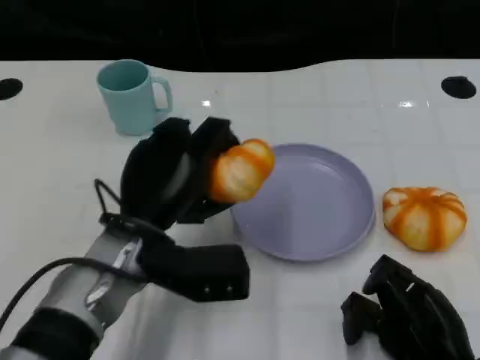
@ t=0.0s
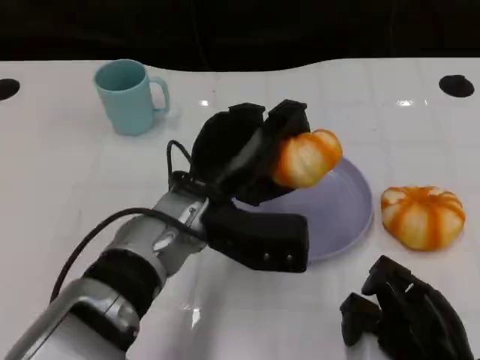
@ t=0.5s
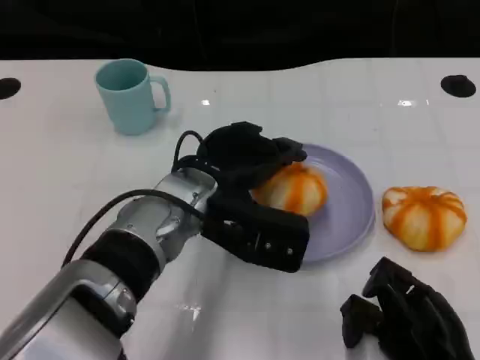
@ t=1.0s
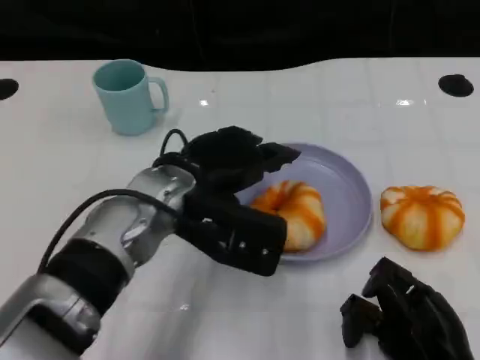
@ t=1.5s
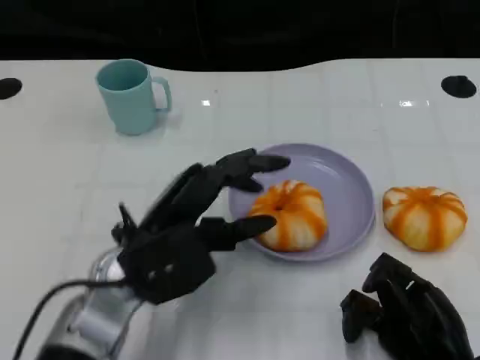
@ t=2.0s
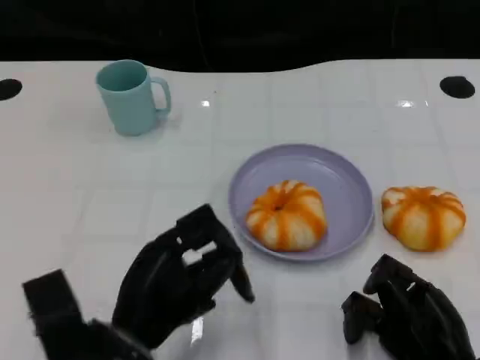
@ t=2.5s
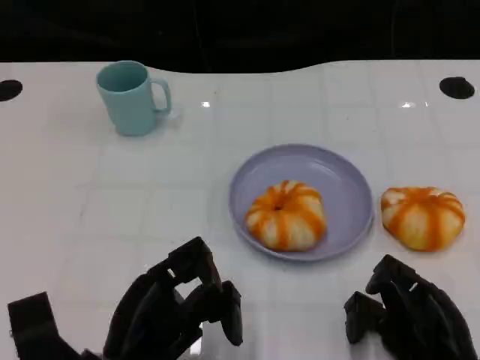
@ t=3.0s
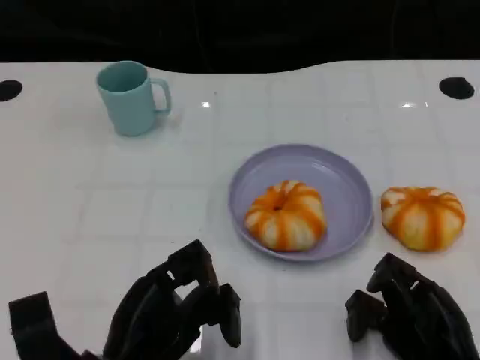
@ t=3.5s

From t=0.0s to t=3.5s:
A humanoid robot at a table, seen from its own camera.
Task of the whole recording: Grasp the bread from the table and place it into the plate.
From t=2.0s to t=3.5s: The left hand shifts about 10 cm backward.

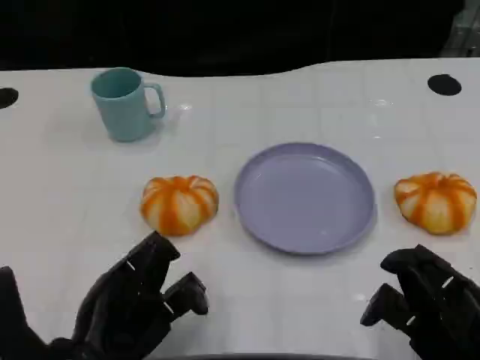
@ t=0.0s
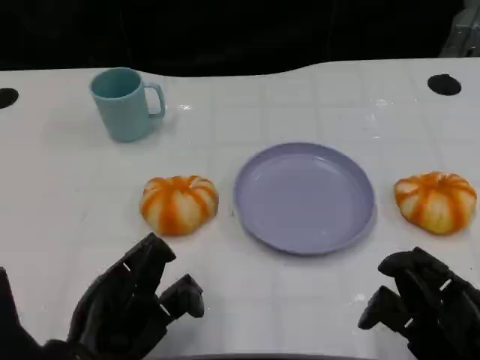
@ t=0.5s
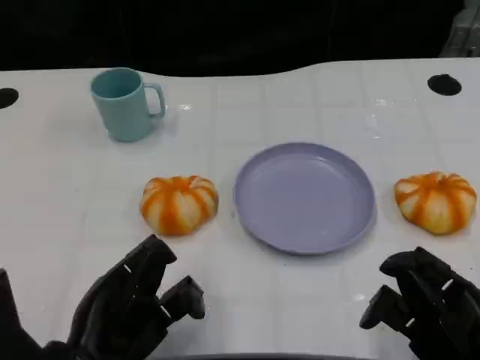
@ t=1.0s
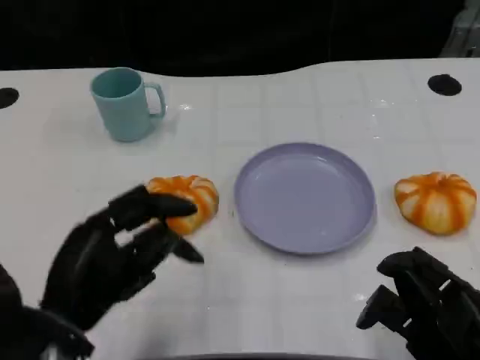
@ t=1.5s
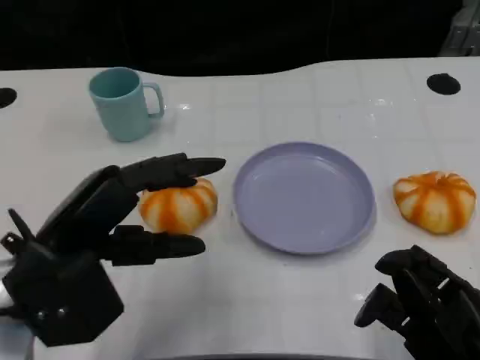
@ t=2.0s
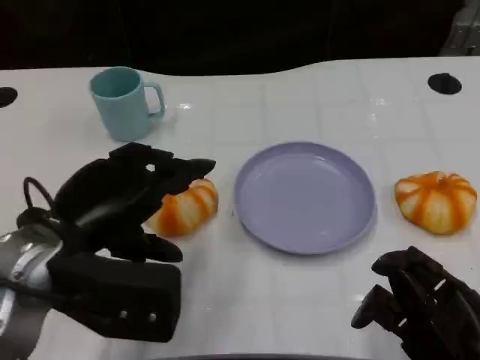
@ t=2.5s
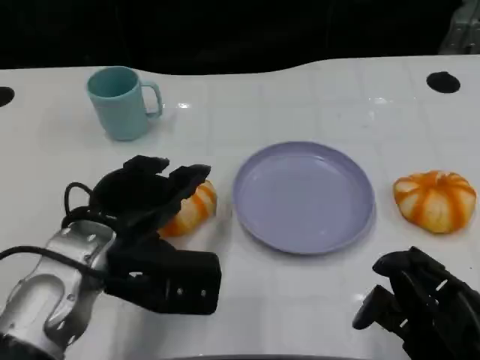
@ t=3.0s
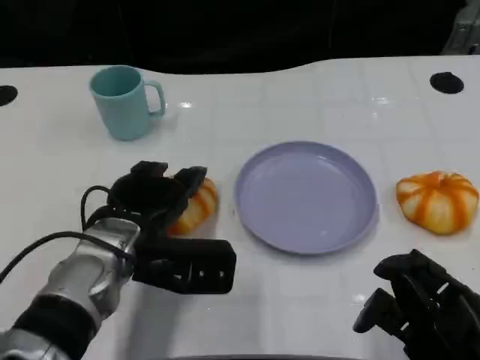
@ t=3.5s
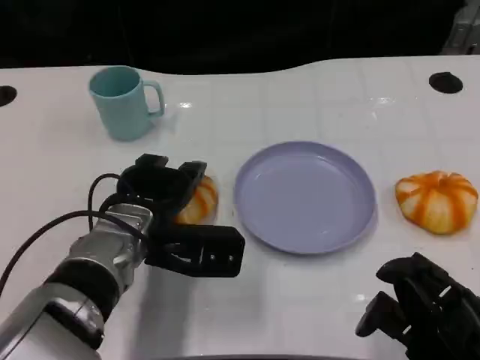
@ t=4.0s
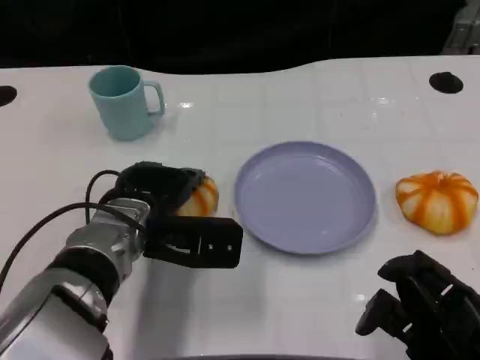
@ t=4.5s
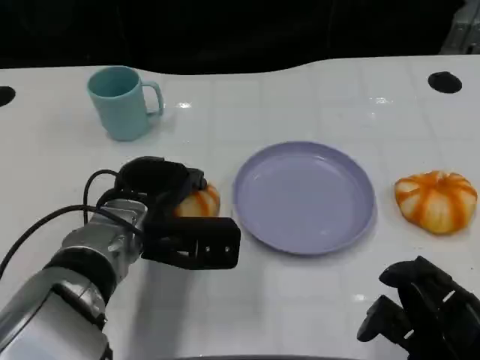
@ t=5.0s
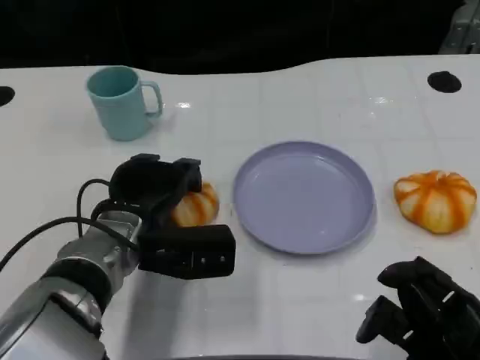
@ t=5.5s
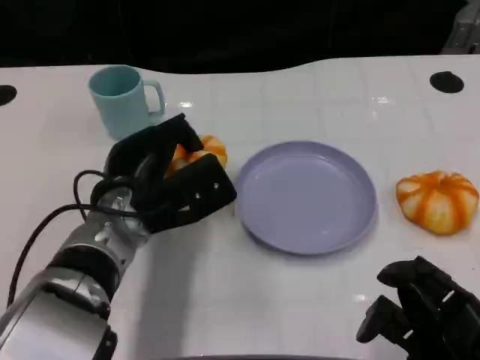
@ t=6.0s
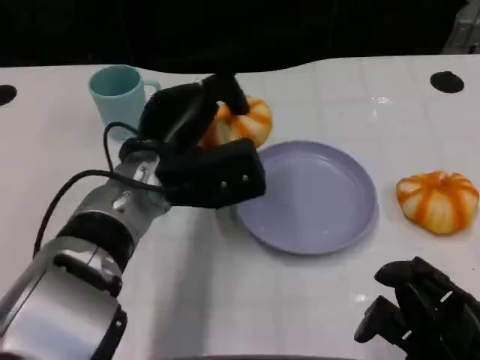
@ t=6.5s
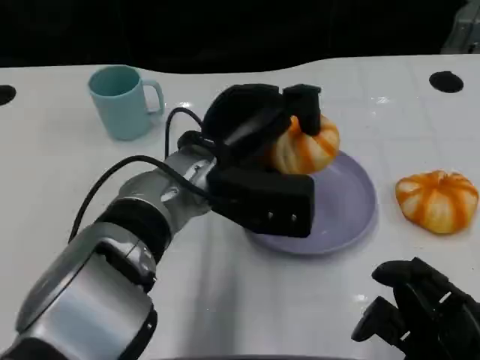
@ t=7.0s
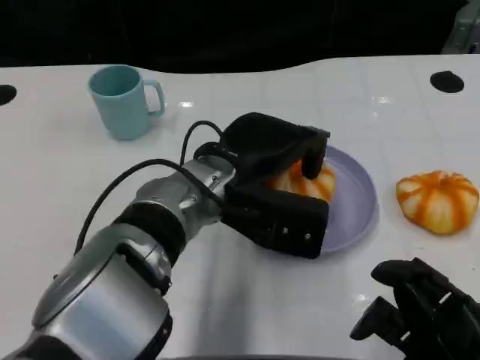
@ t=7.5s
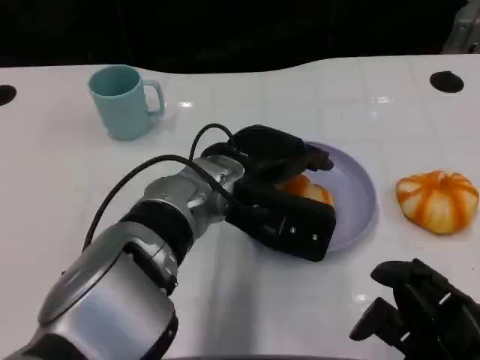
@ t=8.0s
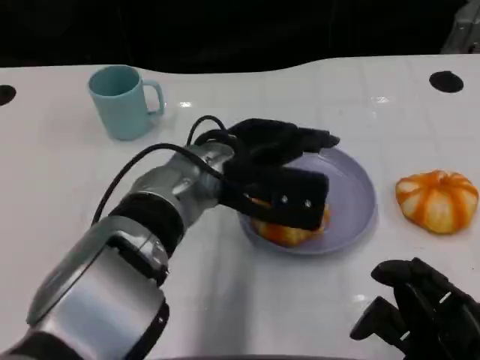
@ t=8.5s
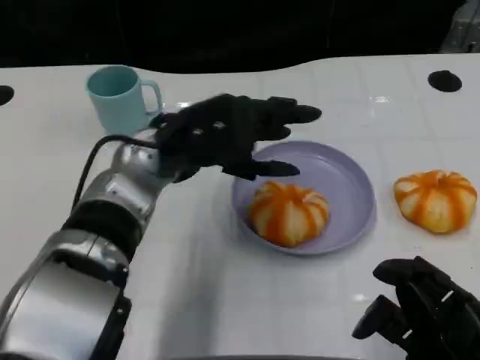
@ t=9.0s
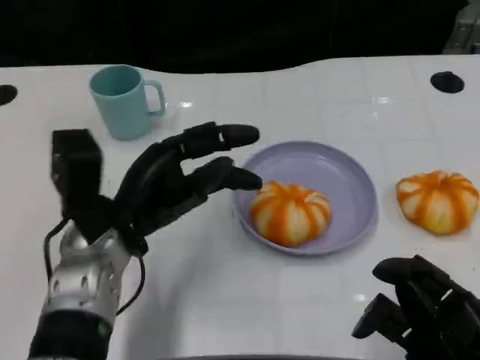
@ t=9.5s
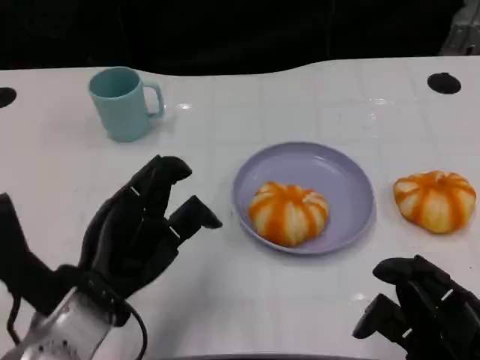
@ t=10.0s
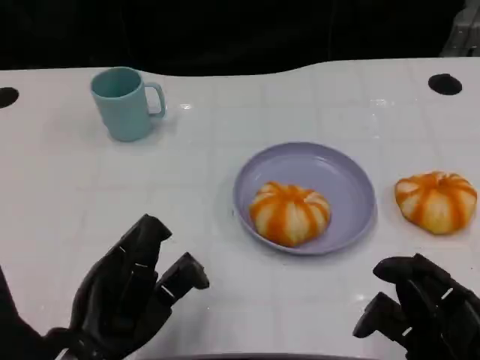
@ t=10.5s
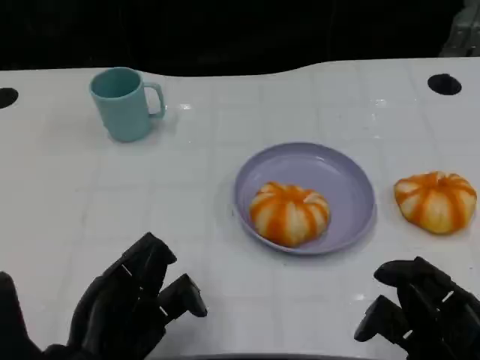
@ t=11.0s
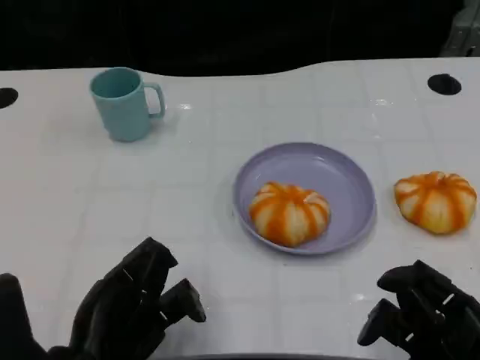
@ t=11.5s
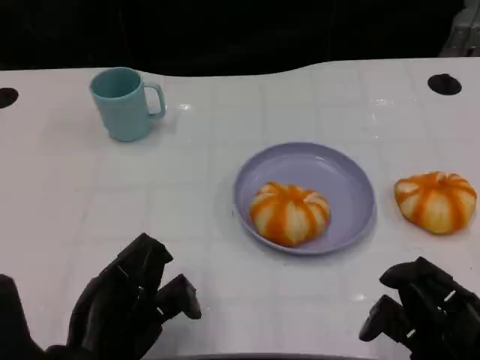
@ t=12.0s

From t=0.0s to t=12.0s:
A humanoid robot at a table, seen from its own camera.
Task of the whole recording: Grasp the bread from the table and place it into the plate.
From t=0.0s to t=2.0s: The left hand moves upward and forward, approximately 10 cm.
From t=2.0s to t=4.0s: The left hand goes approximately 15 cm forward, to the right and downward.
From t=6.0s to t=8.0s: The left hand moves to the right, roughly 10 cm.
From t=8.0s to t=10.0s: The left hand goes about 15 cm to the left and backward.
From t=10.0s to t=12.0s: The left hand moves roughly 5 cm.

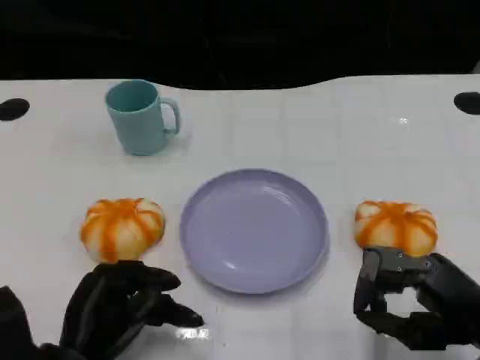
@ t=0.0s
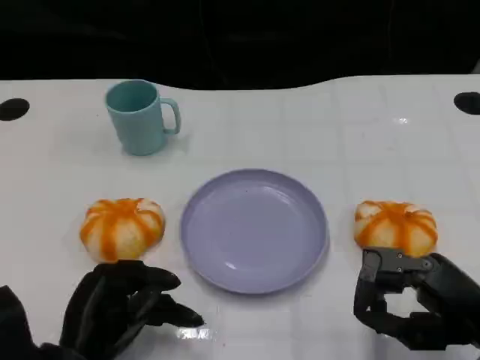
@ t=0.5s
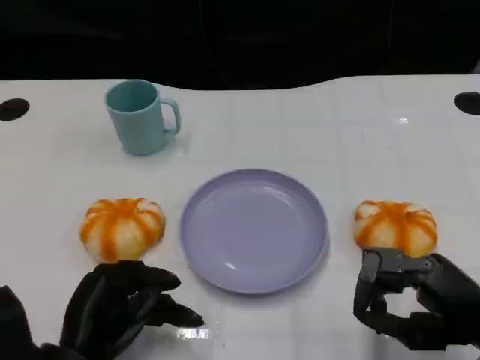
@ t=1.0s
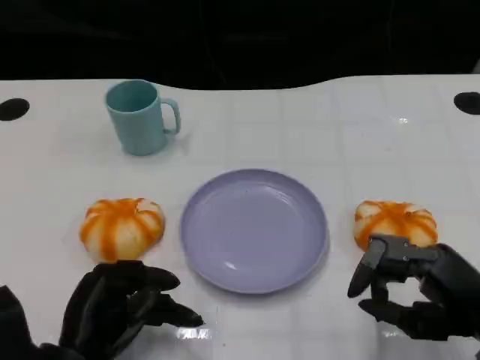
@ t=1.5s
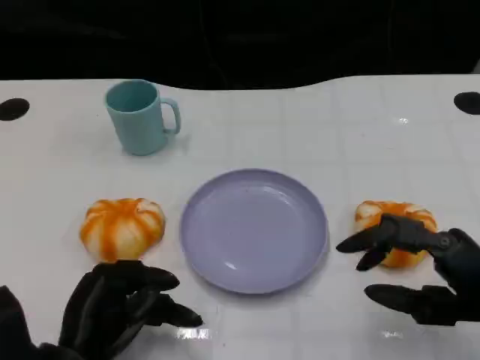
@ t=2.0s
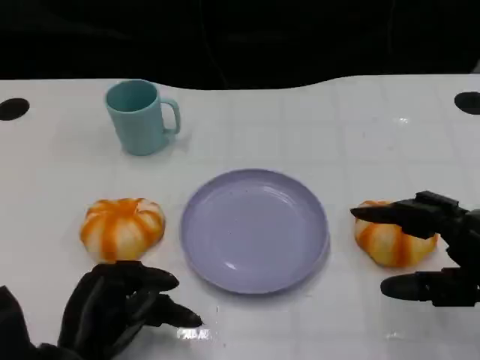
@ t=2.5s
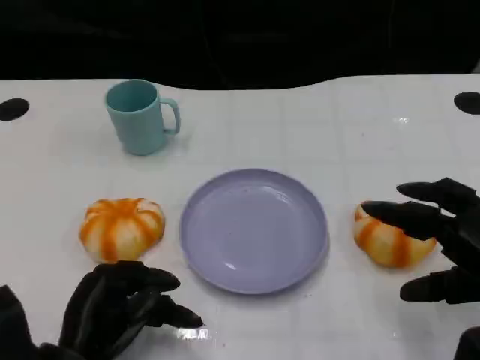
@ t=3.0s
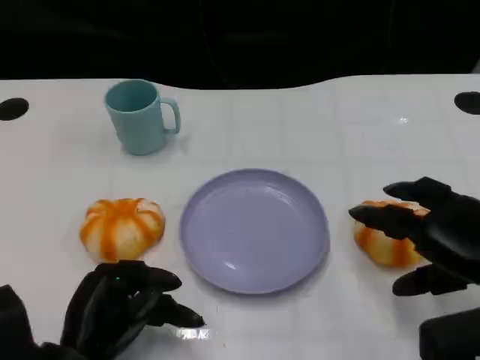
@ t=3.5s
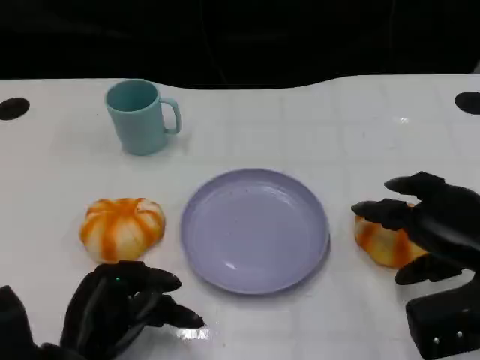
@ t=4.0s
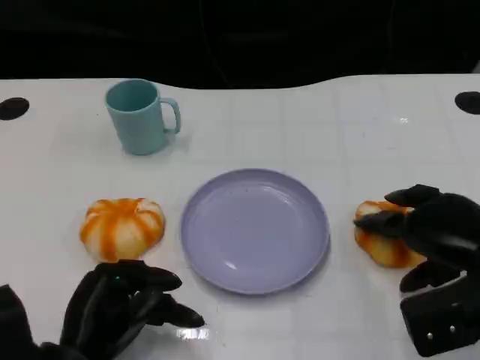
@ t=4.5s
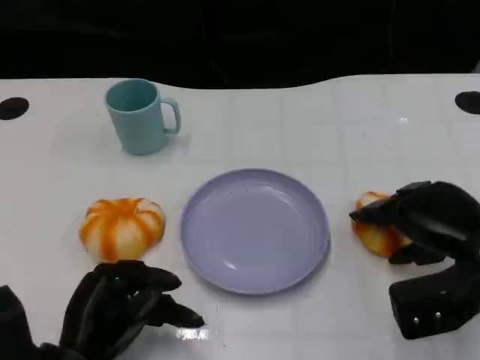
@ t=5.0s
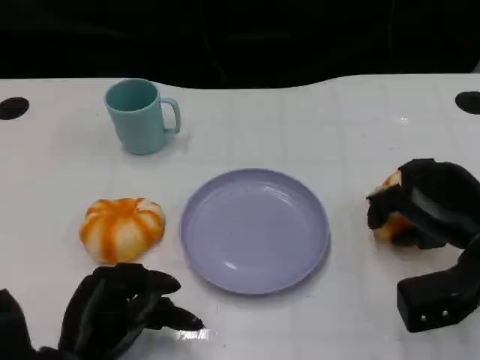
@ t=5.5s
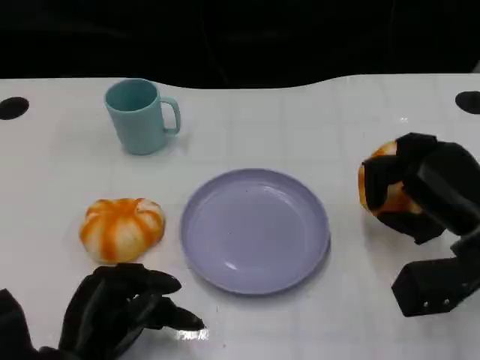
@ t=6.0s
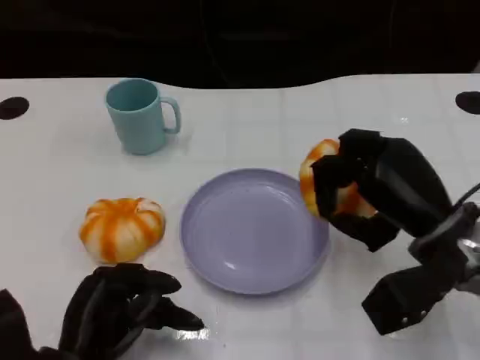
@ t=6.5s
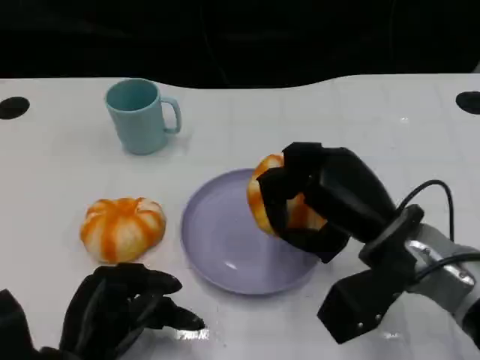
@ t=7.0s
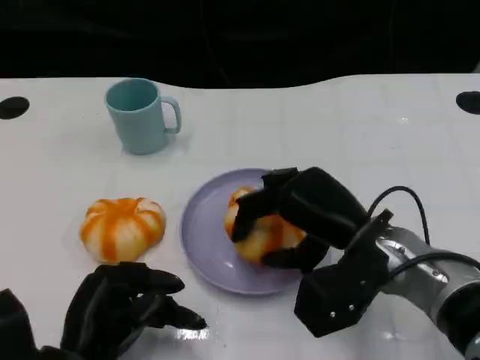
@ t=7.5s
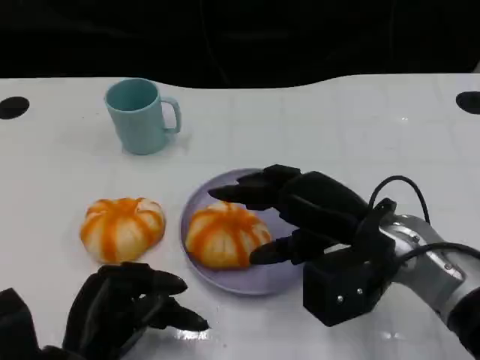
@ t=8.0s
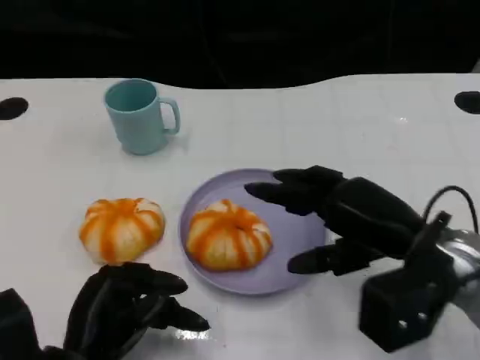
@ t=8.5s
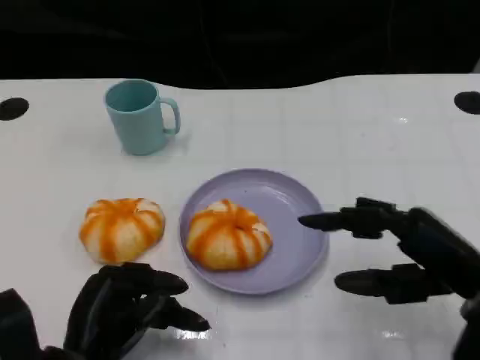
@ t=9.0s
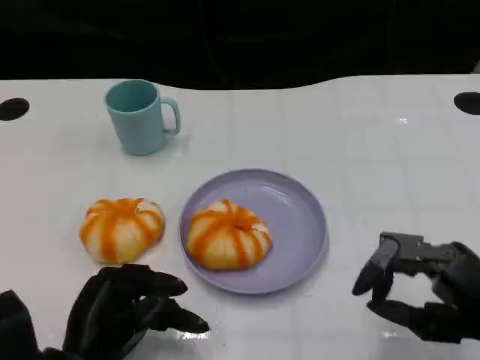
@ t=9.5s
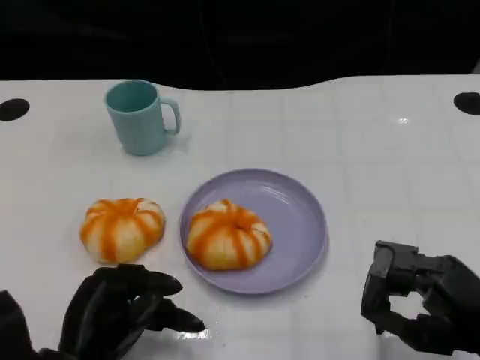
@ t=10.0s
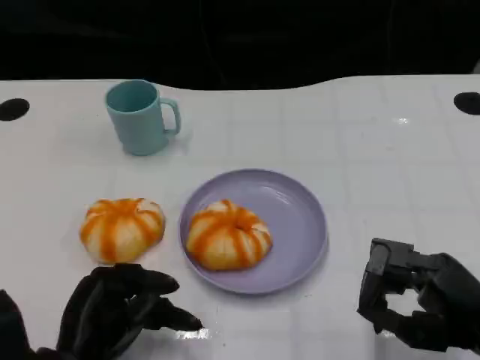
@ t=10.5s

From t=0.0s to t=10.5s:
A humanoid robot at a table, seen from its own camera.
Task of the whole recording: Grasp the bread from the table and place it into the plate.
From t=0.0s to t=2.0s: The hands make only small movements.
From t=2.0s to t=4.0s: The right hand heads forward, covering roughly 5 cm.
From t=4.0s to t=6.5s: The right hand travels to the left by approximately 5 cm.
From t=8.5s to t=10.5s: The right hand moves backward and to the right, about 10 cm.
